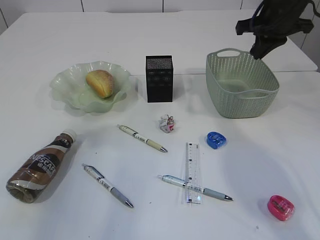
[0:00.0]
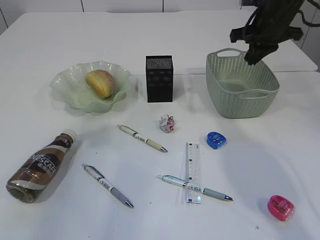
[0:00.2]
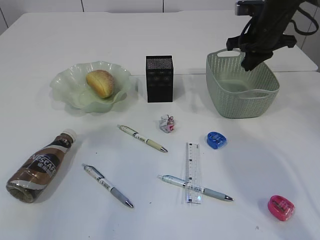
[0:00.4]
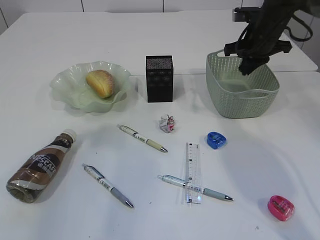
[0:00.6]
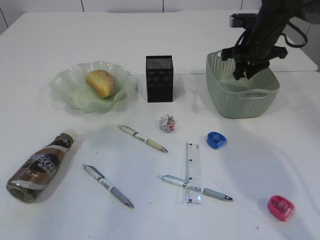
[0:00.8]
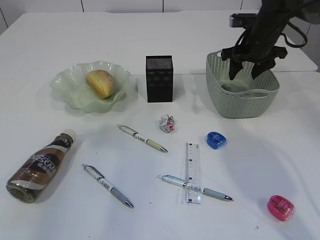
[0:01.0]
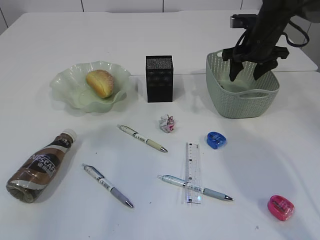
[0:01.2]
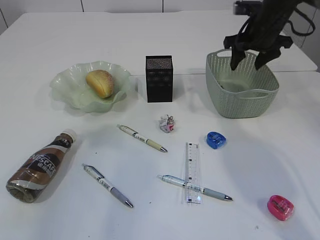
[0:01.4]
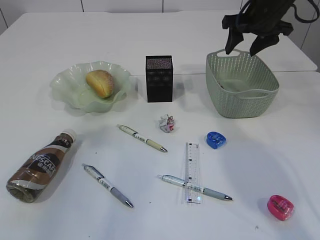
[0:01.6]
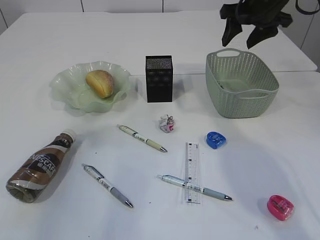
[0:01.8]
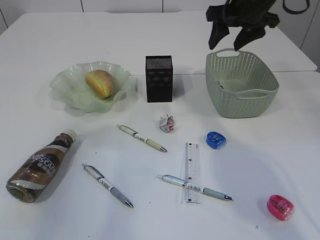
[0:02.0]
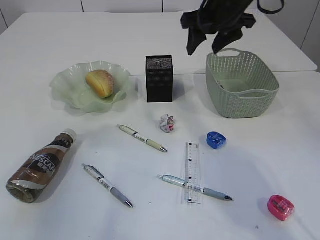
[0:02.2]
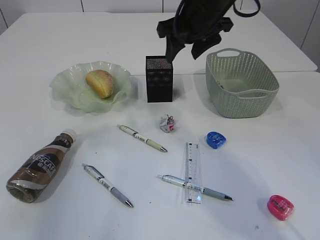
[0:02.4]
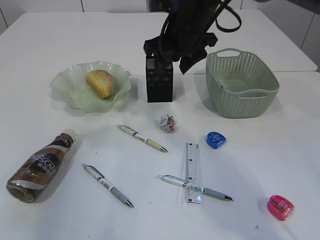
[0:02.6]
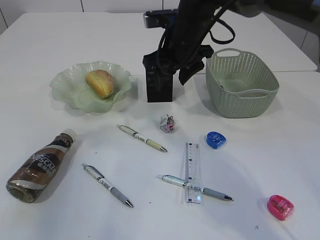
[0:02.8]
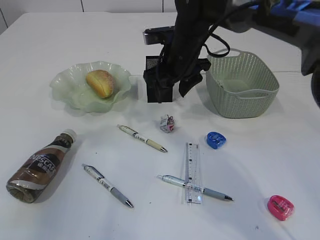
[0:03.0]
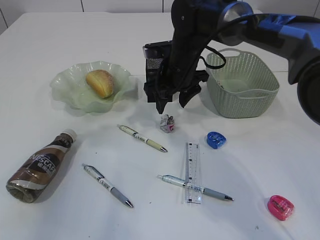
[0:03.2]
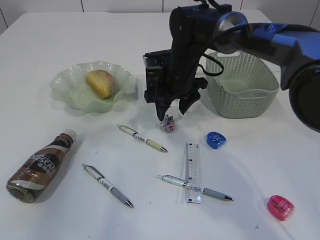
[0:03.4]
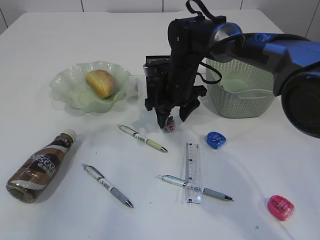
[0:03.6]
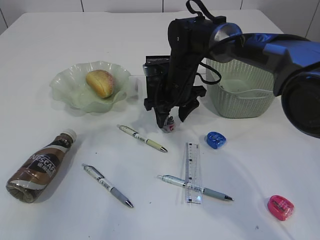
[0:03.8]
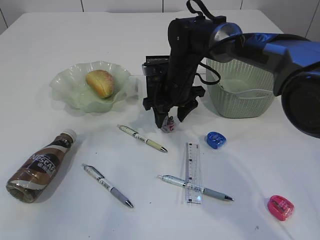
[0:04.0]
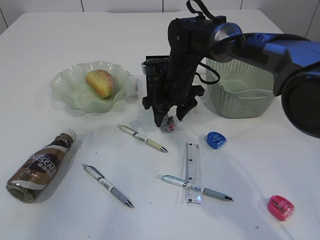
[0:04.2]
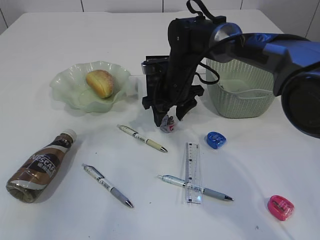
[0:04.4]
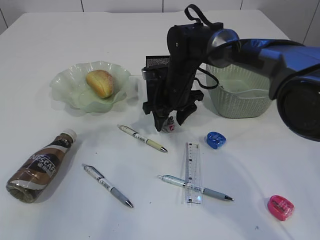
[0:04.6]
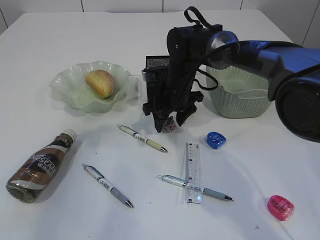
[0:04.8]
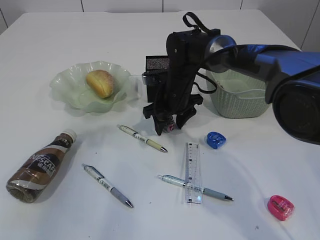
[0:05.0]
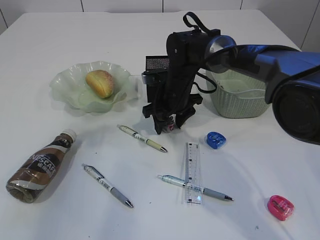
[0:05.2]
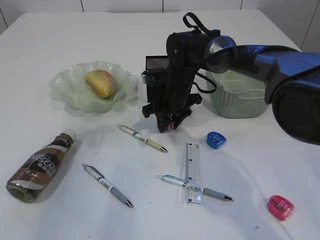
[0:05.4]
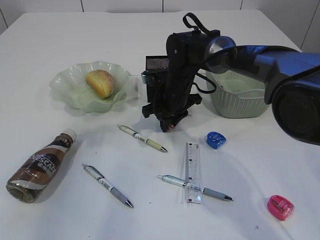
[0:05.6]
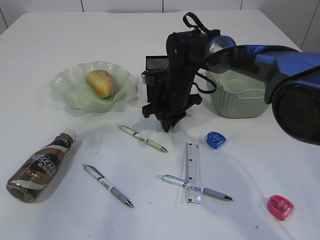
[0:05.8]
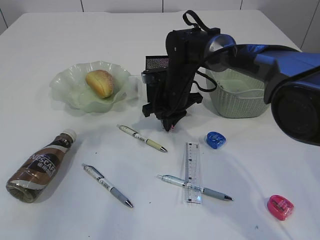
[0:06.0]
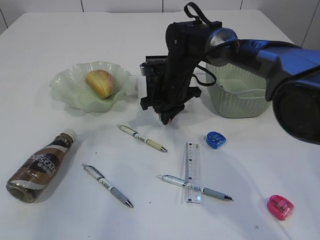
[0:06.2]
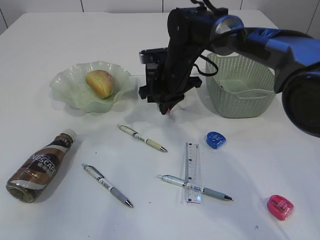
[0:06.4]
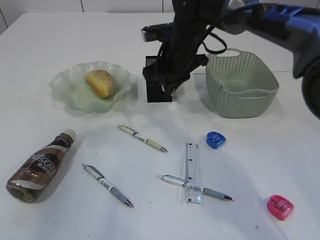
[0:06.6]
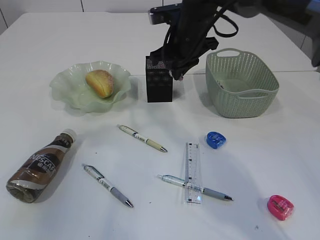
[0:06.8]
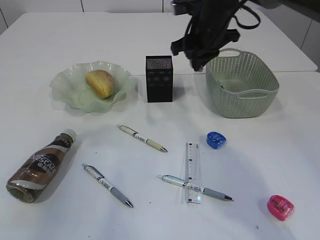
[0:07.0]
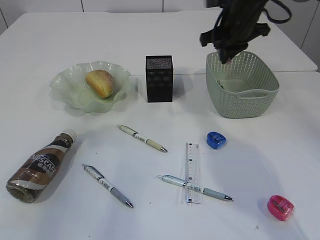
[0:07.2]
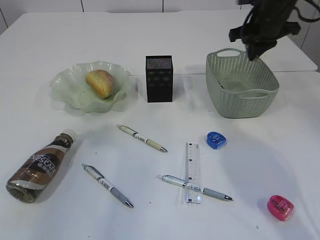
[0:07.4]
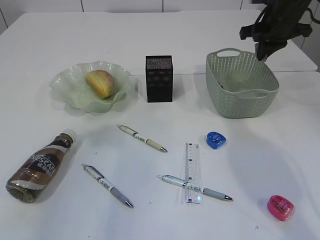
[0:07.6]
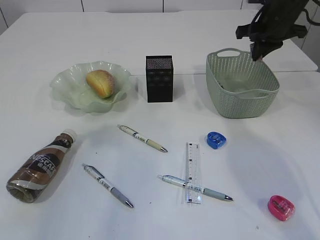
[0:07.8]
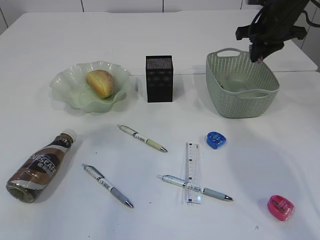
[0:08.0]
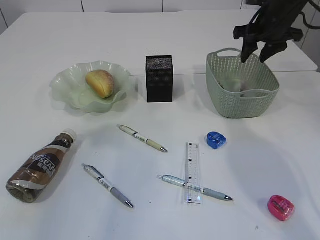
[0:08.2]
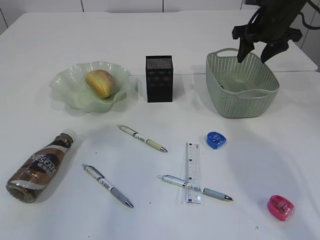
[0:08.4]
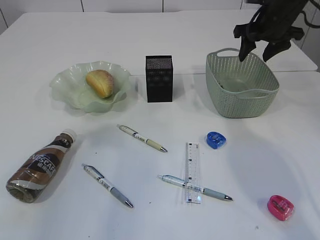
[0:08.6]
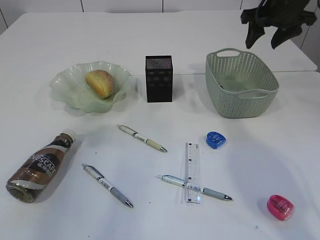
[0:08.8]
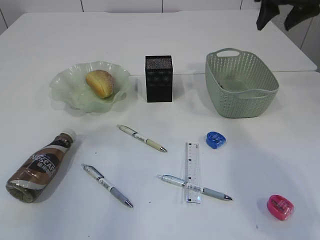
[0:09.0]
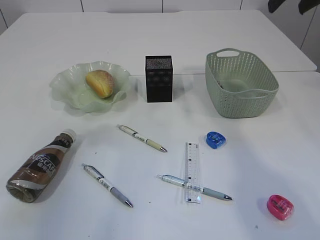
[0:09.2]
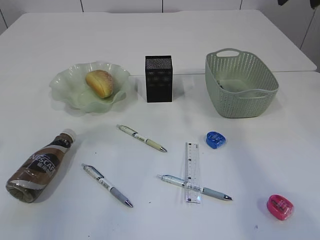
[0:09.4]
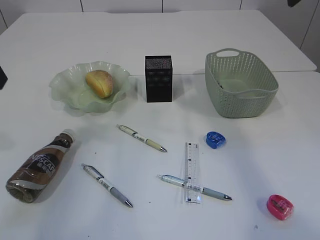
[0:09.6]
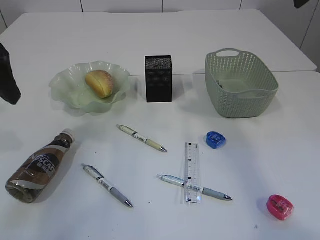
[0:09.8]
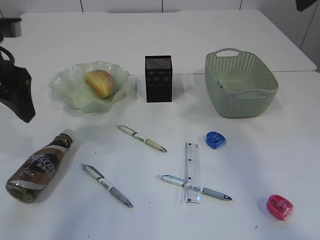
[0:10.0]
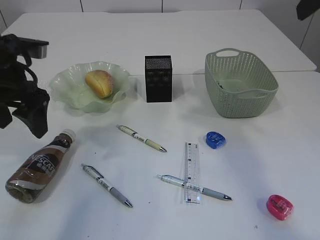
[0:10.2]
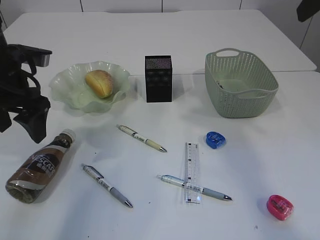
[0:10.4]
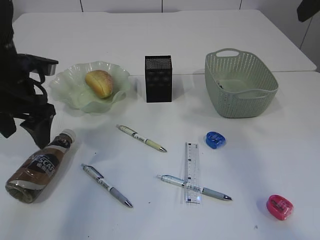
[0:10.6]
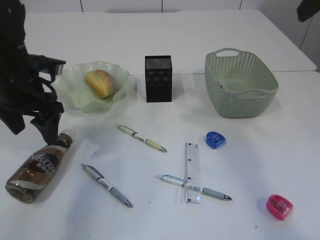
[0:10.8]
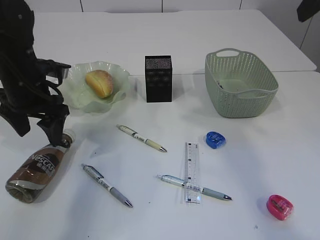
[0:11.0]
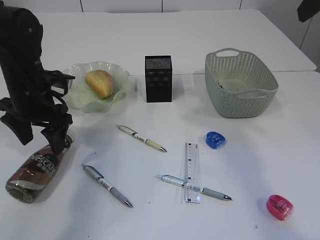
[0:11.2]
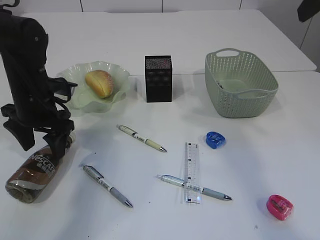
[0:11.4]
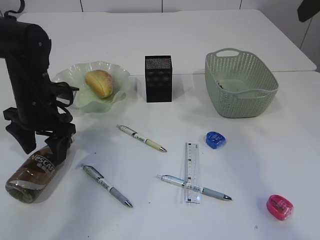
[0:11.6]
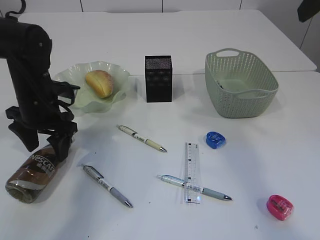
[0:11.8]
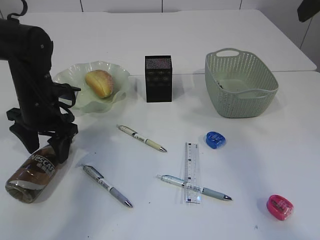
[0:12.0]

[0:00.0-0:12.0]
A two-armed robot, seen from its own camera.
Step, 0:00.0 to 0:01.8: Place the waste paper in the basket.
Step, 0:02.0 to 0:06.6: Pick up the waste paper.
Step, 0:06.8 to 0:08.6: Place the waste paper in the basket.
0:00.0 to 0:01.6: The right gripper opens up.
0:01.6 to 0:03.0: The right gripper moves to the left, some 15 cm.
0:03.0 to 0:04.4: The right gripper heads downward, covering roughly 5 cm.
0:04.4 to 0:06.0: The right gripper closes its fingers.
0:06.0 to 0:07.6: The right gripper travels to the right and upward by approximately 25 cm.
0:07.6 to 0:09.0: The right gripper is displaced upward and backward by some 10 cm, and opens up.
0:09.0 to 0:10.4: The right gripper is displaced backward and upward by approximately 15 cm. The left gripper travels downward and forward by roughly 20 cm.
0:10.4 to 0:12.0: The left gripper shifts some 10 cm downward.

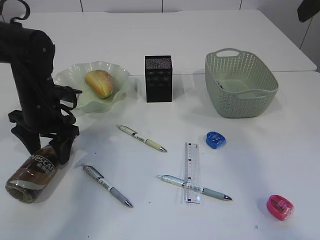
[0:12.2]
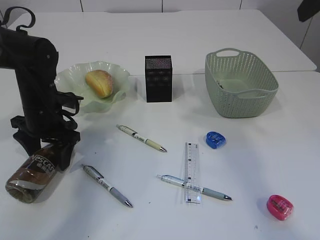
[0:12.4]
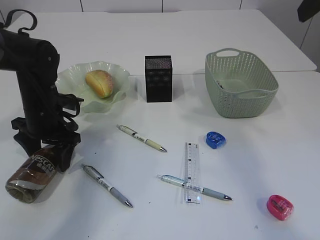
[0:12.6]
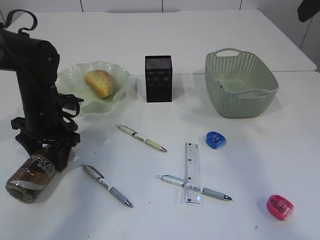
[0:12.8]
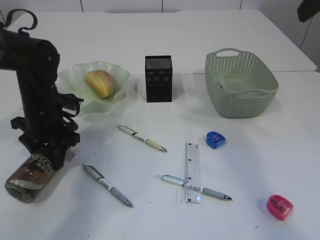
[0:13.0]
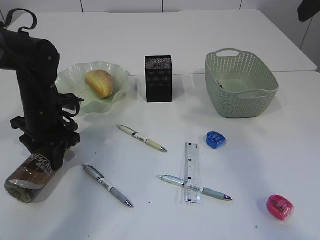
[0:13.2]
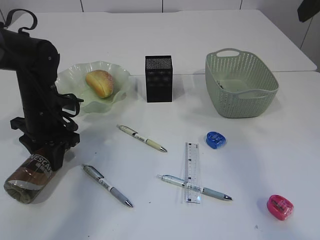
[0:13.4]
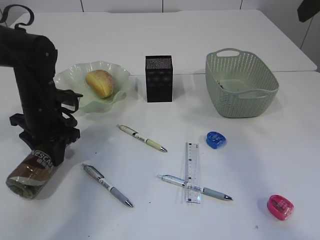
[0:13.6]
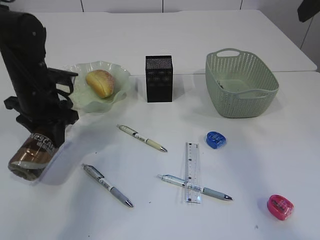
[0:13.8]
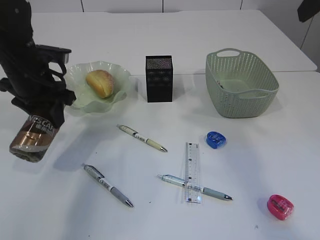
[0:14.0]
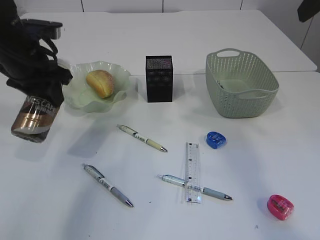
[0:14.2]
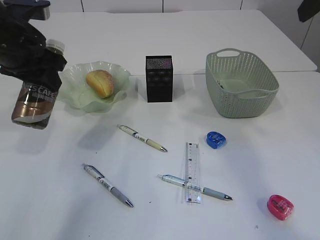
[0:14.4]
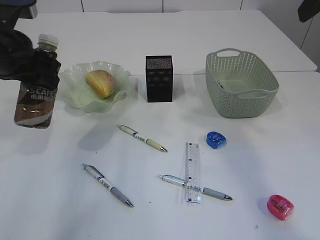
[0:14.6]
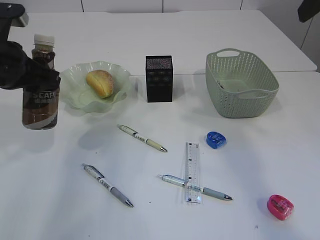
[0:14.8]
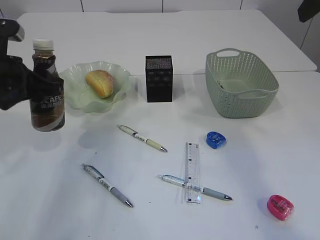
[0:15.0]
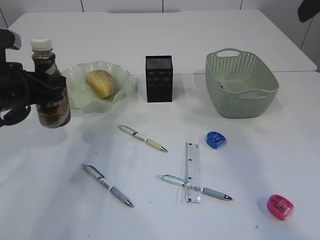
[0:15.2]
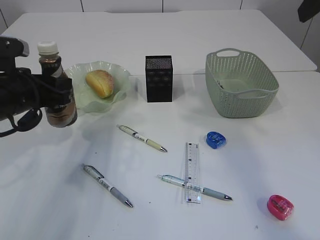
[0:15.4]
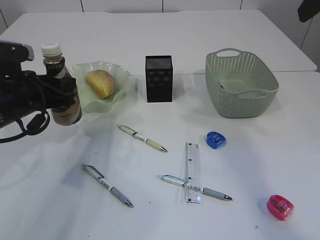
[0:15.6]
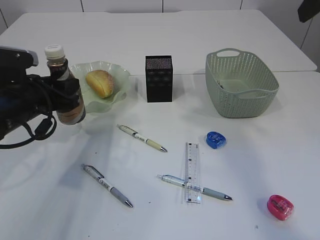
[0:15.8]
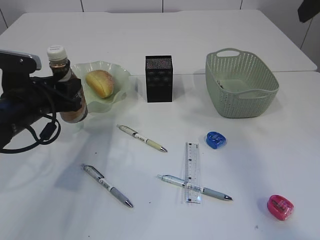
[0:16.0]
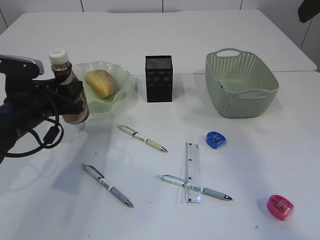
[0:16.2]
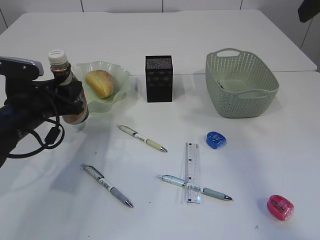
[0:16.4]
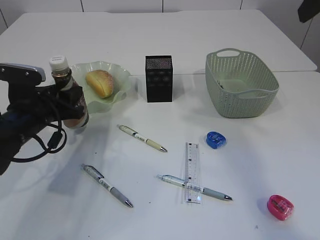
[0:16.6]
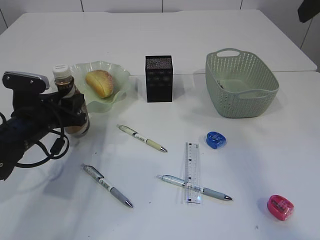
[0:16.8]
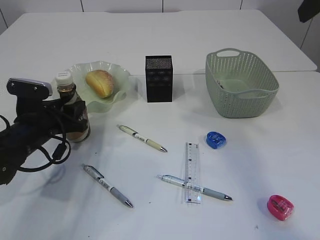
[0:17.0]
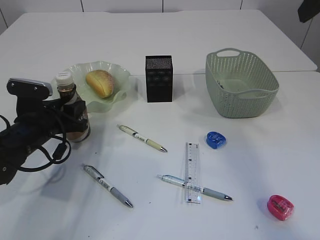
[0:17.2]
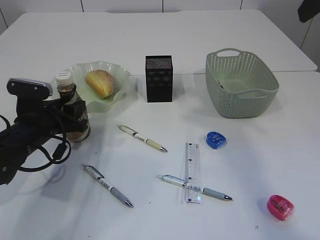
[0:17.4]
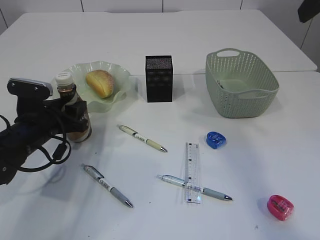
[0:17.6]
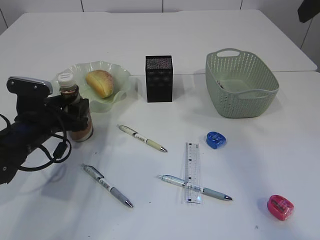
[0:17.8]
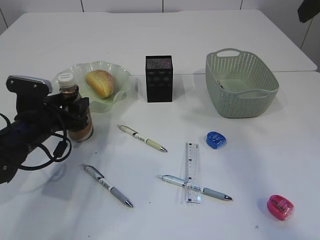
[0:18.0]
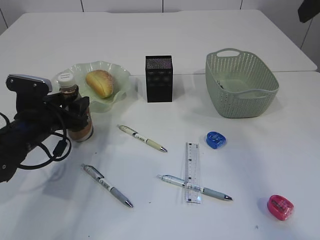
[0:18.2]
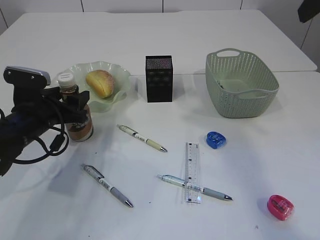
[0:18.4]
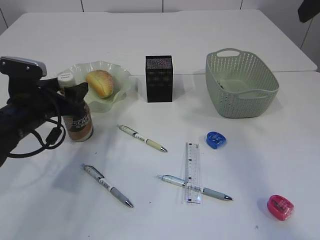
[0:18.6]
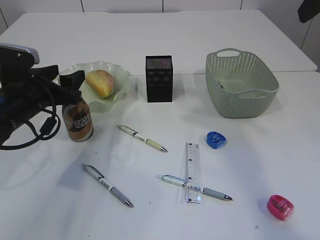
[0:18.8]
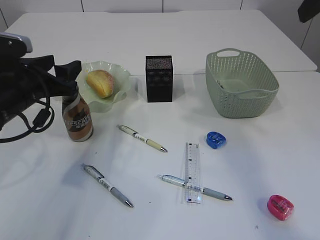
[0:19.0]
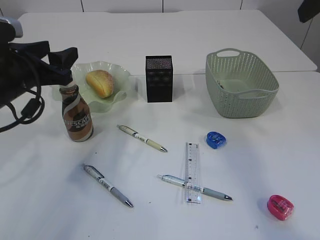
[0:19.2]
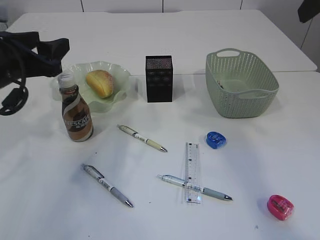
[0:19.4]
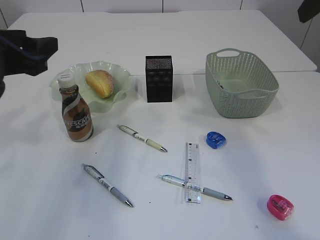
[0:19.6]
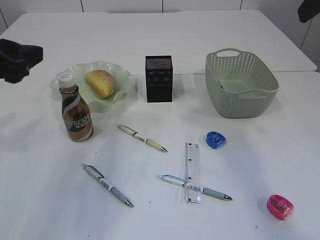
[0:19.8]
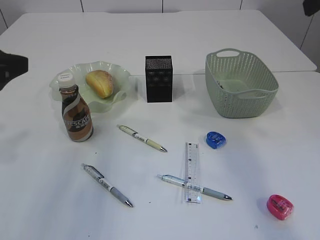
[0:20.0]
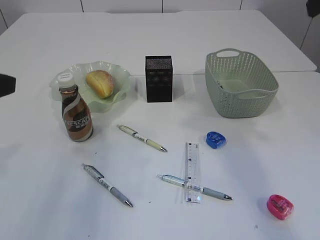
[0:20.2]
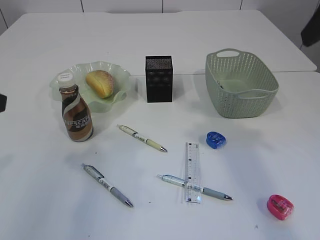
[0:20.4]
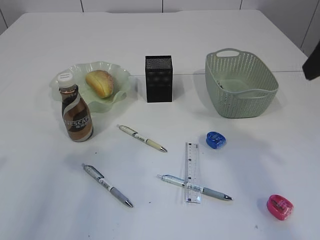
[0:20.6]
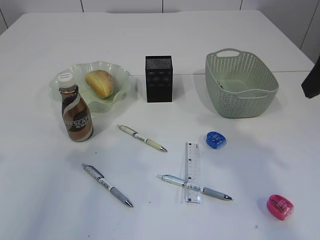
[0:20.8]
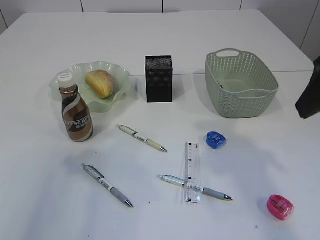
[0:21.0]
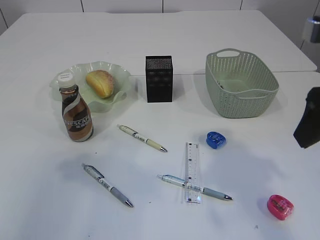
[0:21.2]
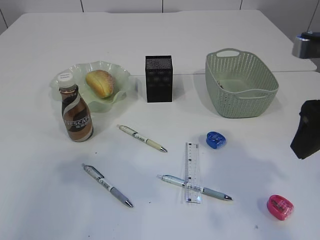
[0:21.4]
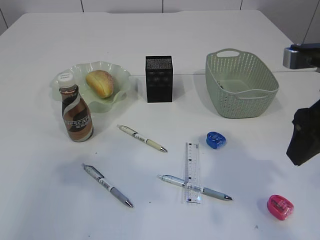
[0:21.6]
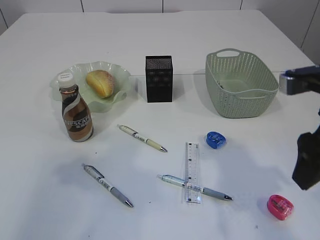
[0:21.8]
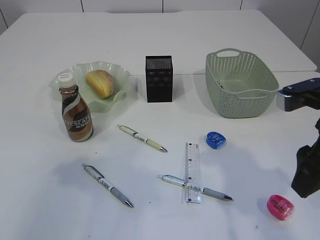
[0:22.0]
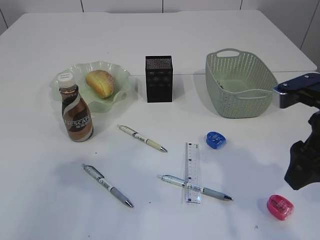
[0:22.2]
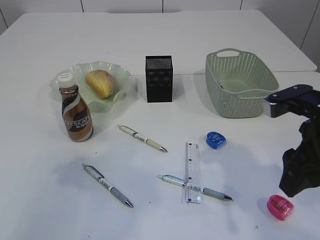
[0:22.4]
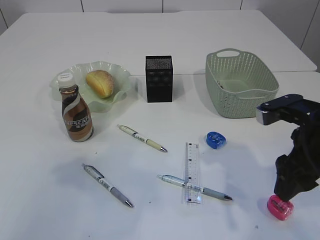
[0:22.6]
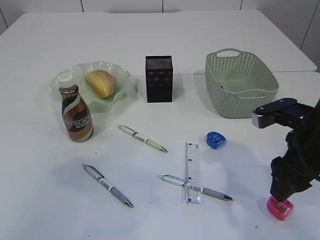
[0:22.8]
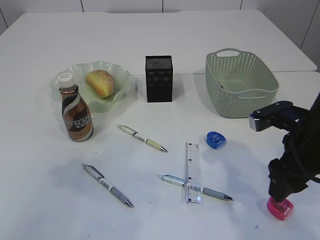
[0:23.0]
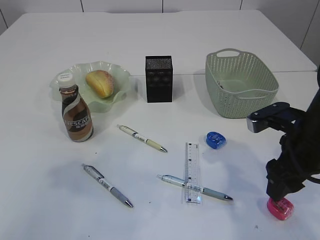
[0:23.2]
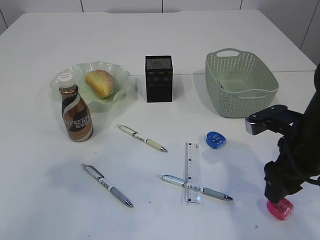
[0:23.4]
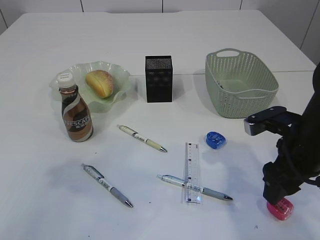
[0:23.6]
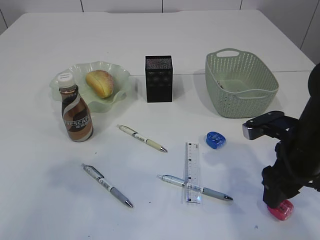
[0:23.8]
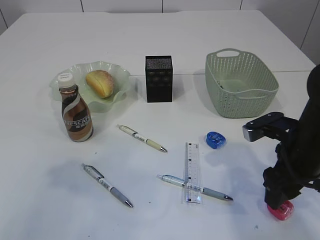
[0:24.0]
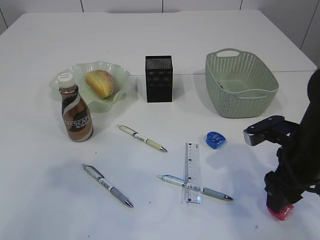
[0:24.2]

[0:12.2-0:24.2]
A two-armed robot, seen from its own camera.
Step, 0:14.0 to 0:19.2: Place the bottle.
0:12.2 to 0:13.8: The left gripper closes.
0:13.8 to 0:15.2: The left gripper is displaced backward by some 10 cm, and moves approximately 10 cm upward and comes back.
0:15.2 to 0:16.6: The left gripper heads downward, covering approximately 10 cm.
0:16.6 to 0:18.2: The left gripper opens up.
0:18.2 to 0:19.8: The left gripper heads upward and backward, covering about 20 cm.
0:19.8 to 0:21.2: The right gripper is displaced downward and backward by some 10 cm. The left gripper moves backward and upward, approximately 10 cm.
0:21.2 to 0:22.6: The right gripper goes approximately 10 cm downward.
0:22.6 to 0:24.2: The right gripper shifts roughly 5 cm downward.
